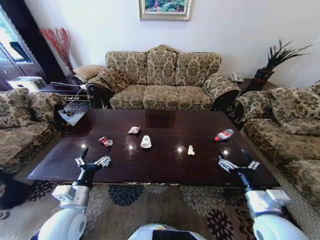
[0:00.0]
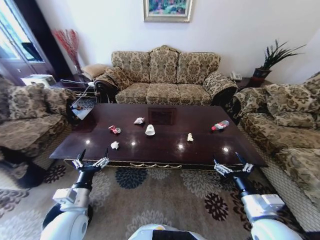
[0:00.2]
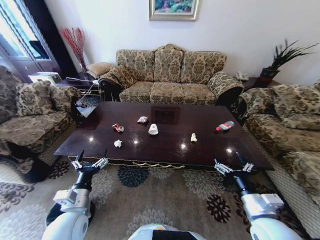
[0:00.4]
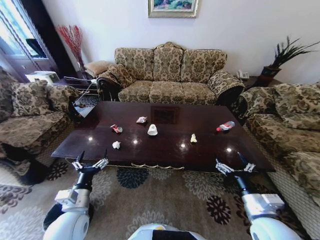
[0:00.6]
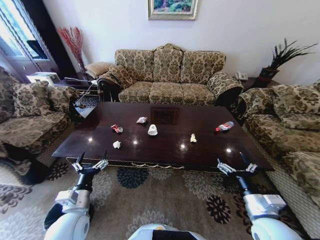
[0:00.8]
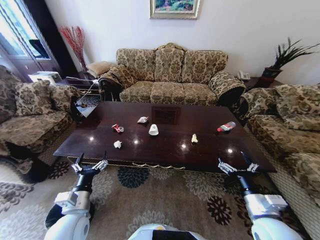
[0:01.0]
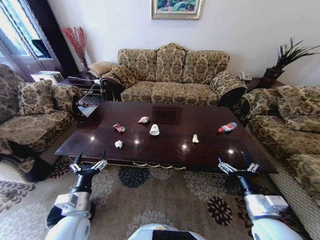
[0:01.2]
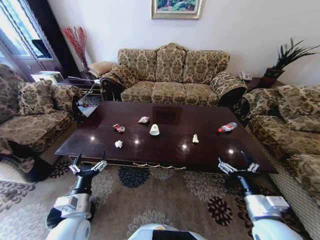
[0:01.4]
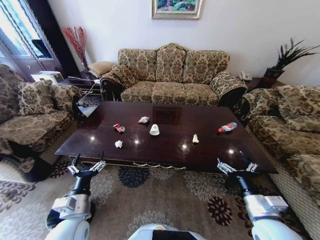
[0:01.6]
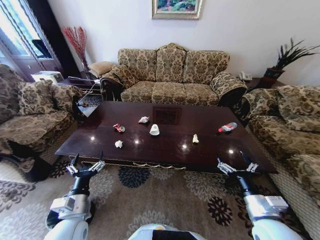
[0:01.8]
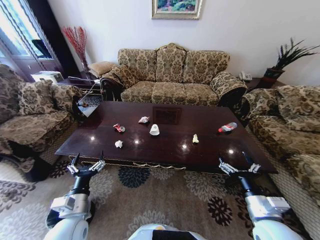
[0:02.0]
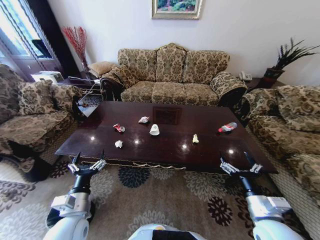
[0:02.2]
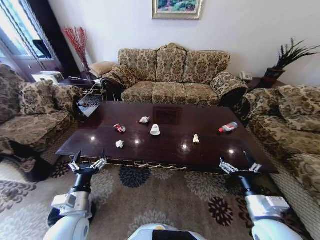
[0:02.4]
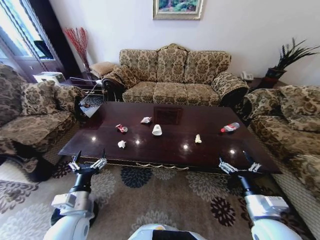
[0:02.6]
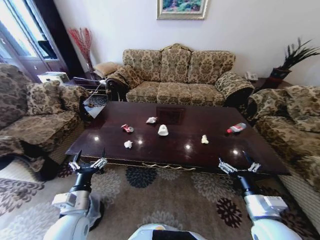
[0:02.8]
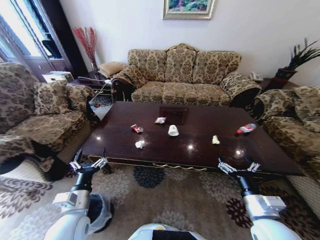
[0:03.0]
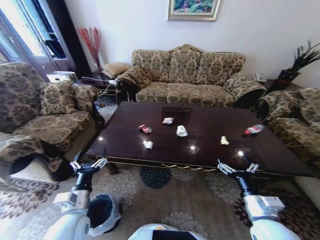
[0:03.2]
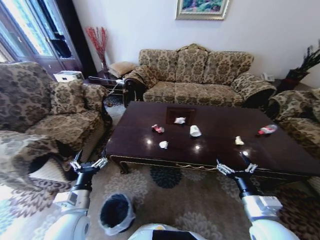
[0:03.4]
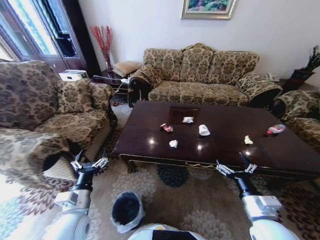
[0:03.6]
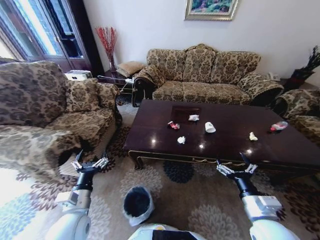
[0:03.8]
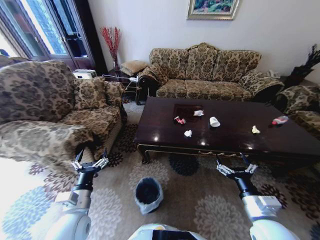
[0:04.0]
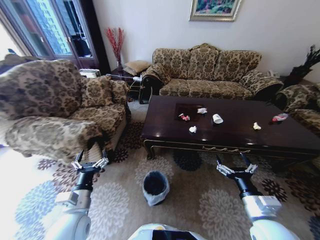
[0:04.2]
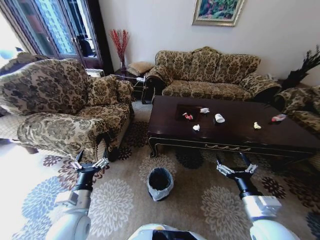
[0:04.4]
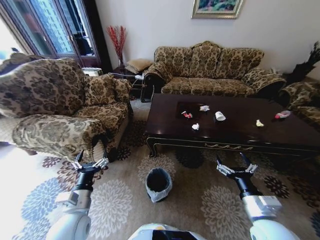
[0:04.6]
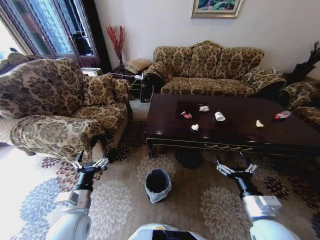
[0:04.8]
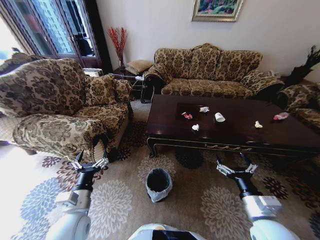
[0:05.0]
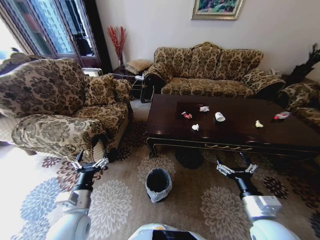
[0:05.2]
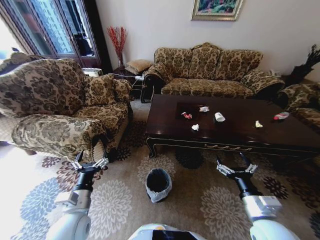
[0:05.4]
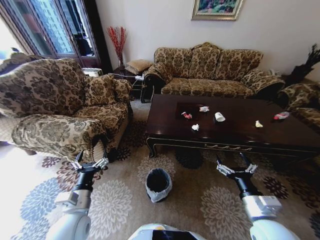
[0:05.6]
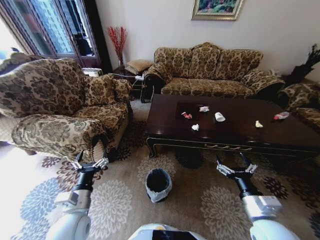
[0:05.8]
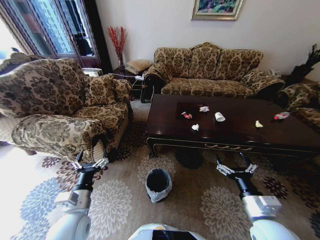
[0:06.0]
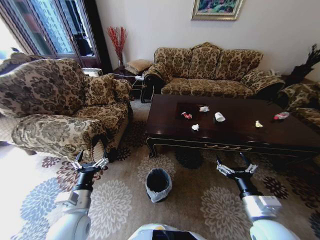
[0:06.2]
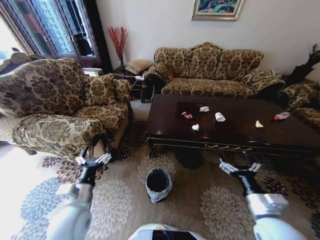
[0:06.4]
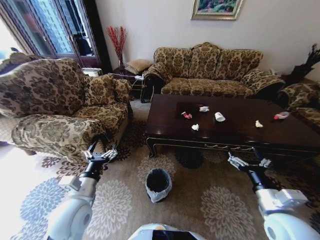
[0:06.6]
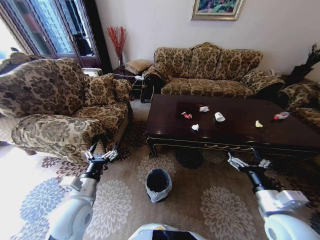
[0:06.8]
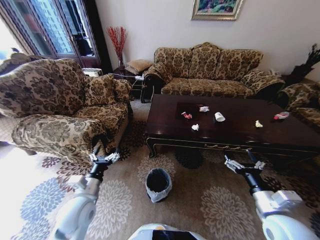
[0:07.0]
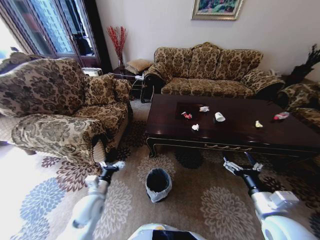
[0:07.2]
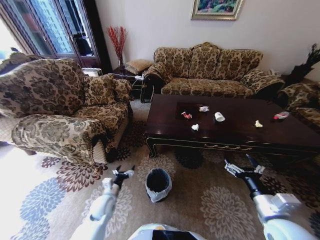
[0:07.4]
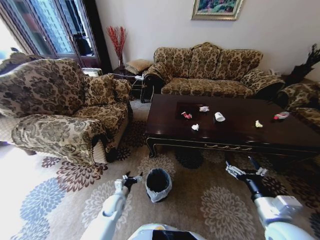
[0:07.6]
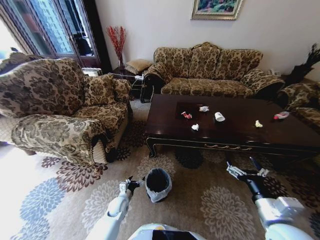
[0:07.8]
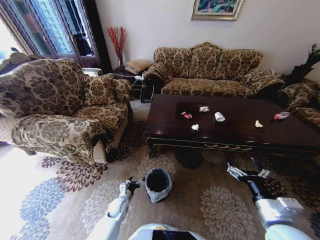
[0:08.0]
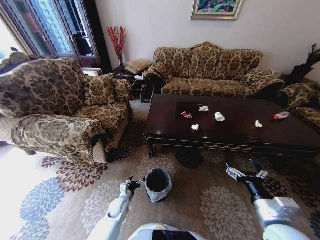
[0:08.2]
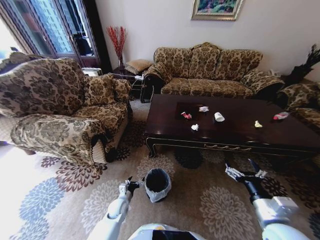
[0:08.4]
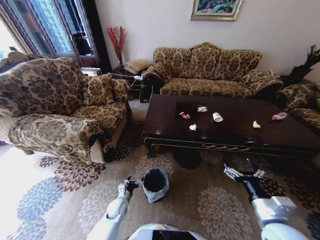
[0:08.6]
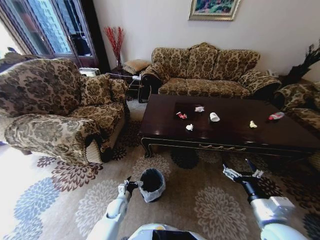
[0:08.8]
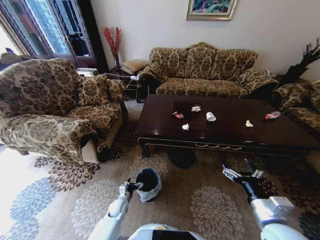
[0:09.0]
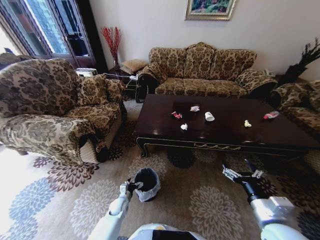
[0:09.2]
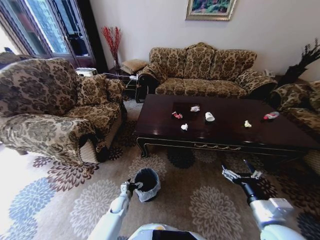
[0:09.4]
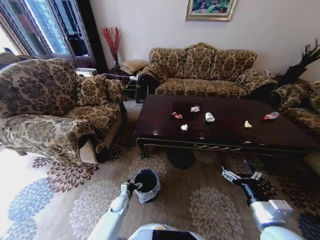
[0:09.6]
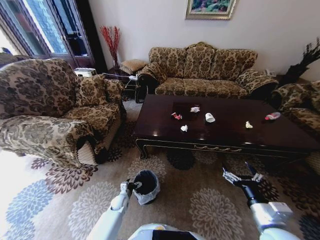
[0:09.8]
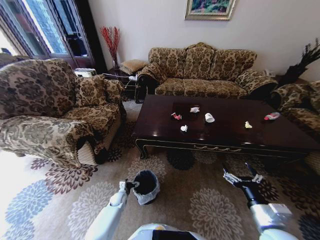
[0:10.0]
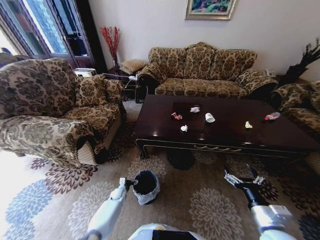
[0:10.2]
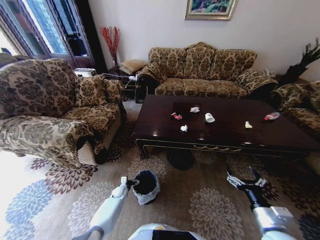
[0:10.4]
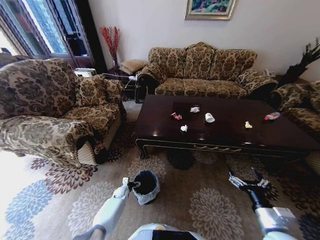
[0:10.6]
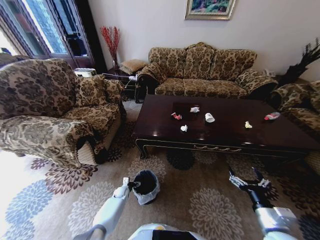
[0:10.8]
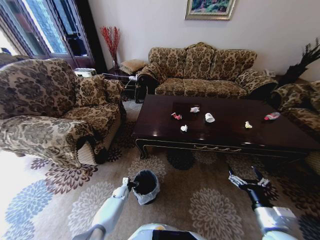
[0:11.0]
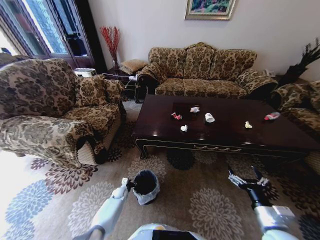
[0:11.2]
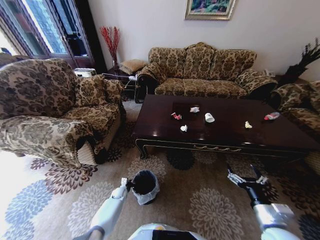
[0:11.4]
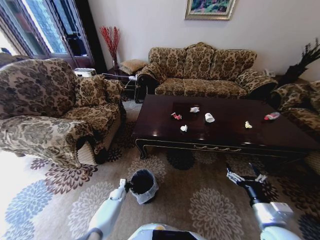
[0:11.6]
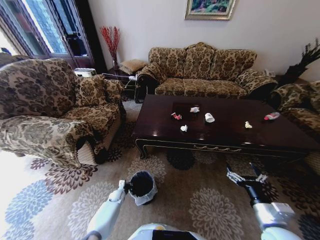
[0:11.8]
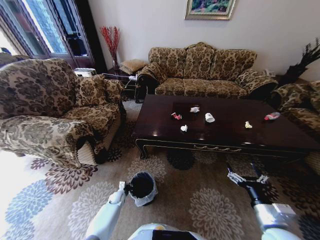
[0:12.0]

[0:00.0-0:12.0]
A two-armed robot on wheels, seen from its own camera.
Task of the whole recording: Move to the front of the table and place the trash on the table into the trash bin.
0:06.0 to 0:07.6: The left gripper is displaced downward and forward by some 25 cm.
0:07.6 to 0:09.0: The left gripper moves downward, about 10 cm.
0:09.0 to 0:10.4: The left gripper goes about 10 cm forward and downward. The right gripper is displaced downward by about 5 cm.
0:10.4 to 0:12.0: The left gripper closes.

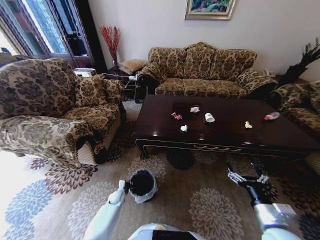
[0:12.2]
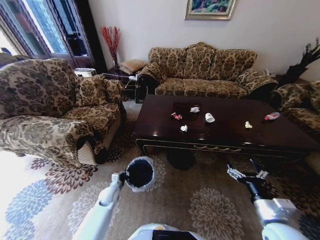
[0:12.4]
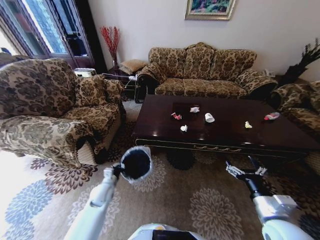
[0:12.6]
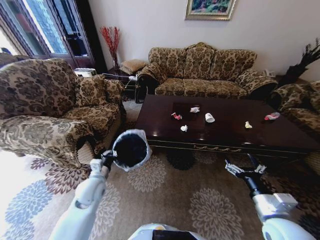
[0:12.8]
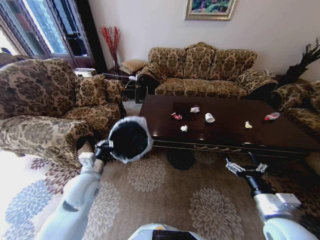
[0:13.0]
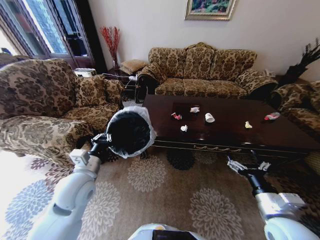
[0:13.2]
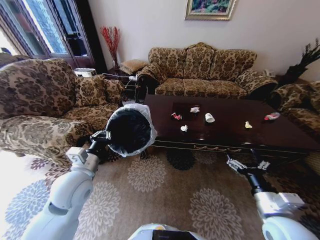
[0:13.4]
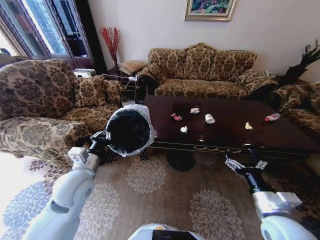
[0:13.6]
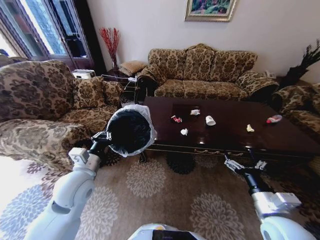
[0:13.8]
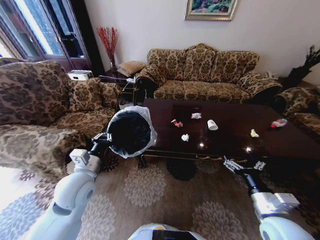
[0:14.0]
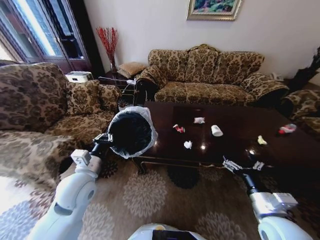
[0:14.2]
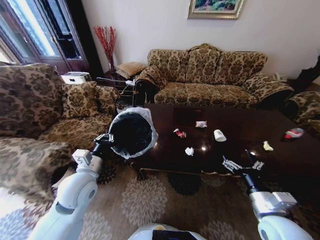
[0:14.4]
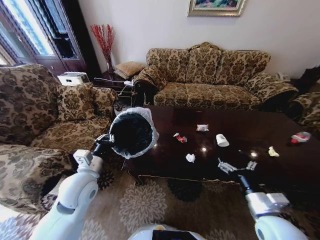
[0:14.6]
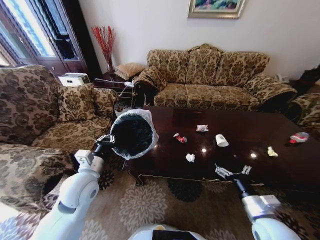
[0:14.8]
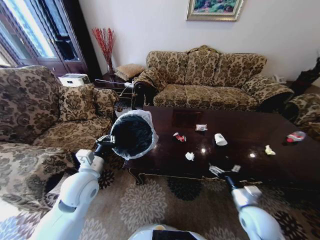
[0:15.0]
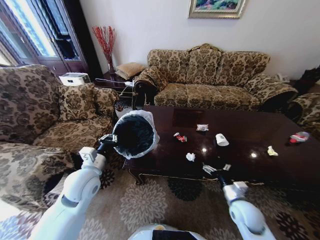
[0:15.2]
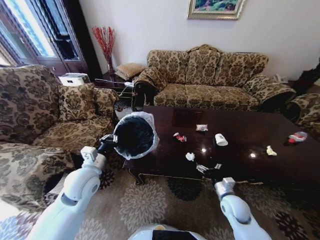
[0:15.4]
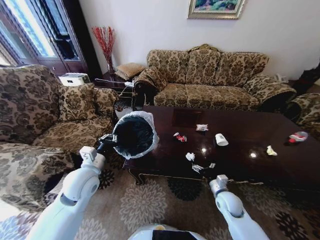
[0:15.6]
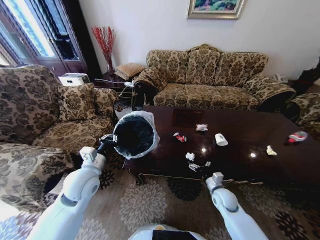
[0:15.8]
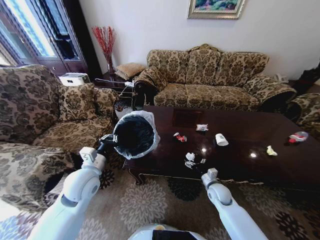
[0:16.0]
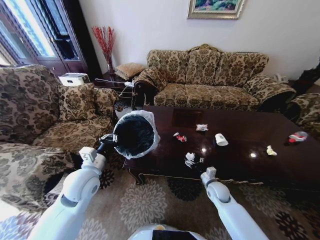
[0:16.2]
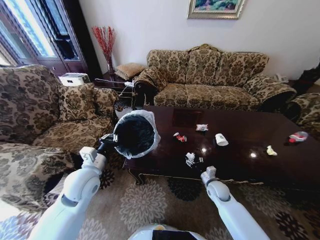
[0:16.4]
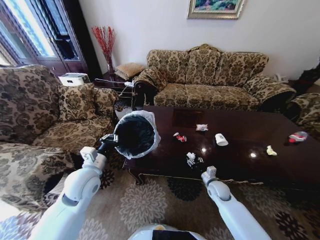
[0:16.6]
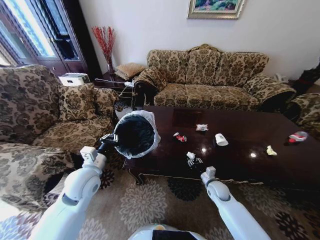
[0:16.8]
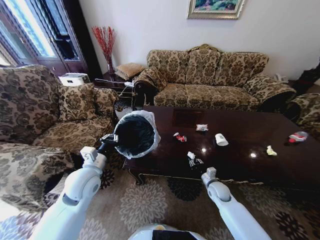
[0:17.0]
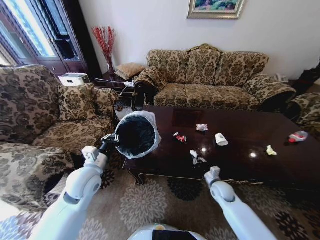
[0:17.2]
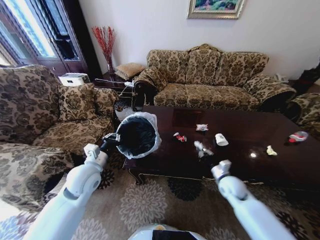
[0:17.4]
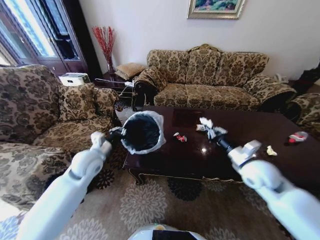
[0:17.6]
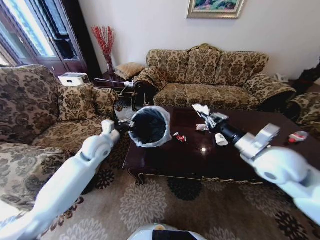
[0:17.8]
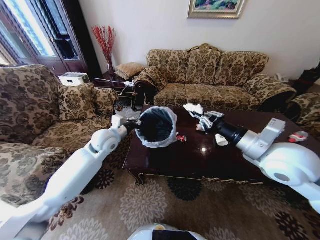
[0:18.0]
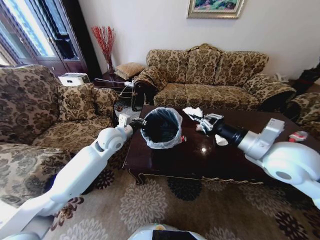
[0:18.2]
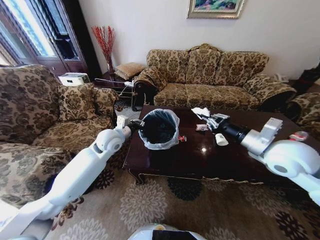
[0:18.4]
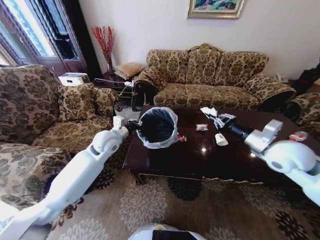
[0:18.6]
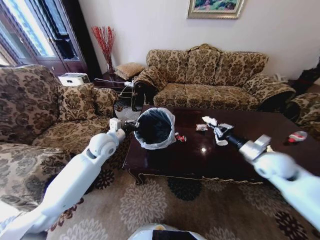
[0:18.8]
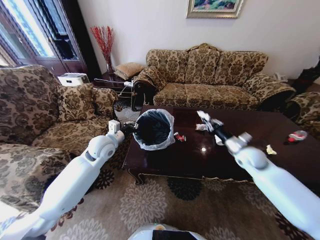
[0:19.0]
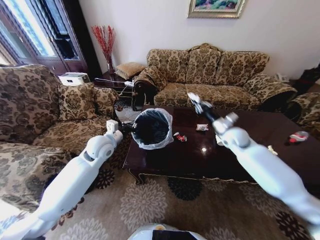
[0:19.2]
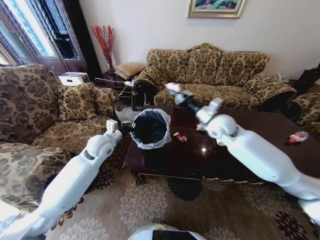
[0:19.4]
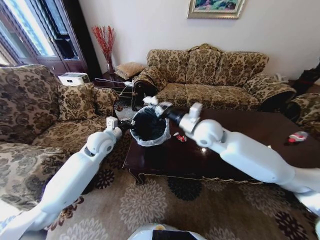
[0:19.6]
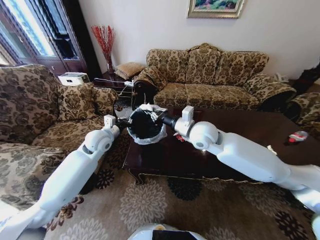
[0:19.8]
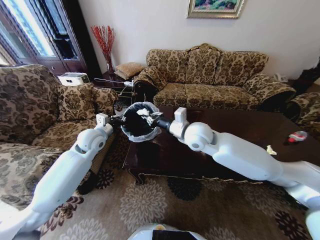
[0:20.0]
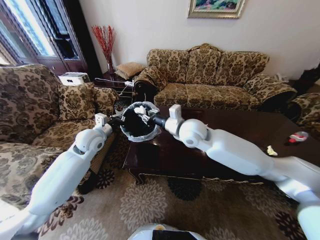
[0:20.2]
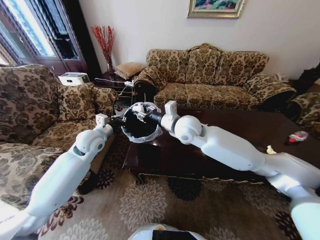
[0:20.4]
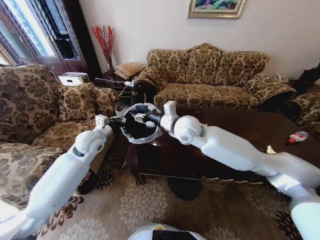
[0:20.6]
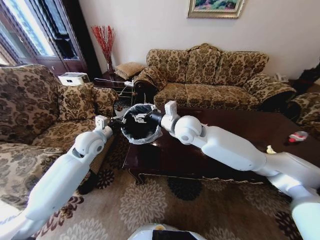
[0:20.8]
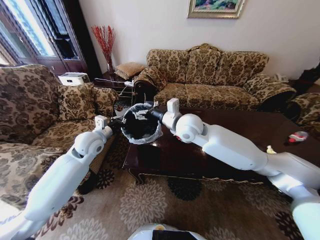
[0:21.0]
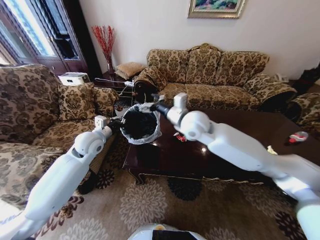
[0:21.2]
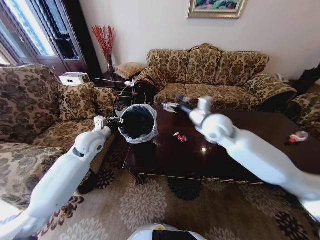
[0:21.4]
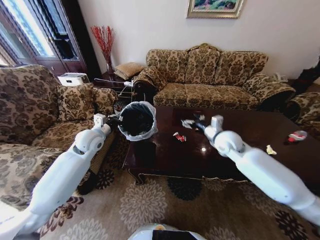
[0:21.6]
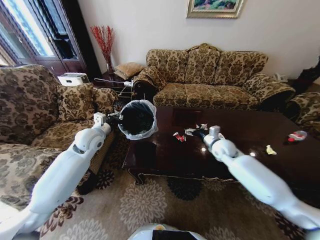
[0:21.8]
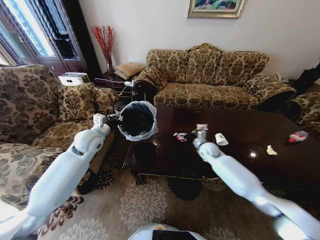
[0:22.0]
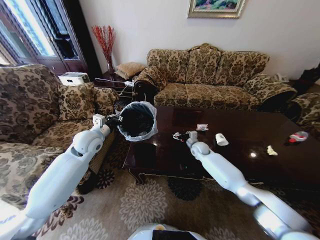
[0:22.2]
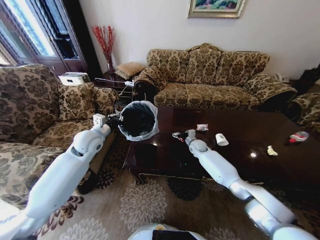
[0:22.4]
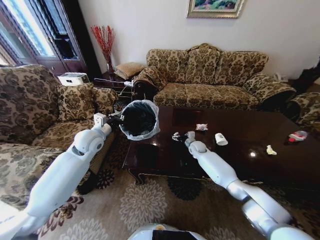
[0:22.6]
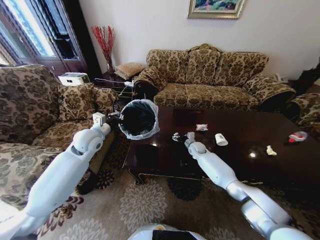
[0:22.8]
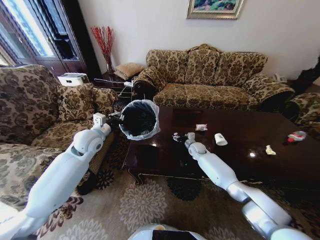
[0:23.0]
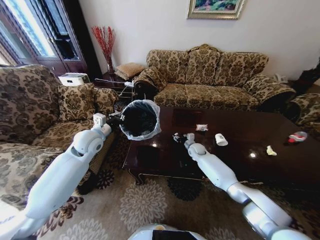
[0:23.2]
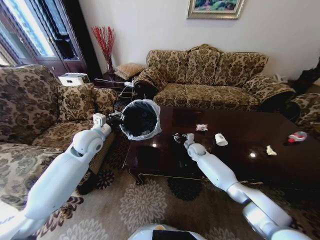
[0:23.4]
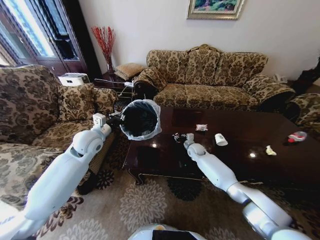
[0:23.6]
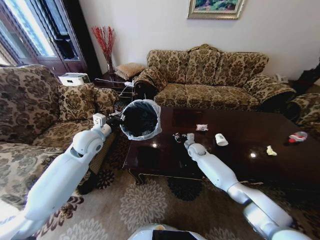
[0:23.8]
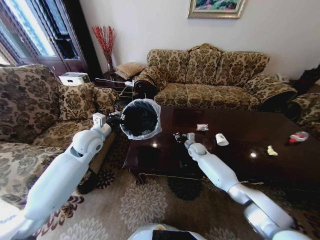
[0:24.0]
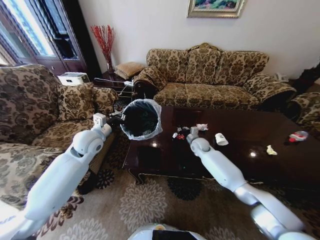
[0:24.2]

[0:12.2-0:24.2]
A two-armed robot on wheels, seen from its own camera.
Task of the whole recording: Move to the front of the table and place the trash on the table into the trash bin.
0:12.2 to 0:13.8: The right gripper shifts by some 5 cm. The left gripper heads upward, covering some 40 cm.
0:13.8 to 0:15.2: The right gripper moves downward and forward, about 15 cm.
0:15.2 to 0:16.6: The right gripper moves forward and downward, roughly 10 cm, and closes.
0:16.6 to 0:18.2: The right gripper shifts approximately 35 cm upward, and closes, while the left gripper moves forward, about 15 cm.
0:18.2 to 0:19.8: The left gripper moves to the left, some 5 cm, while the right gripper moves to the left and forward, some 20 cm.
0:19.8 to 0:21.2: The right gripper opens up.
0:21.2 to 0:22.6: The right gripper is displaced downward and forward by some 35 cm.
0:22.6 to 0:24.2: The right gripper goes approximately 5 cm upward, and closes.
